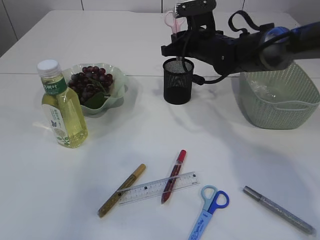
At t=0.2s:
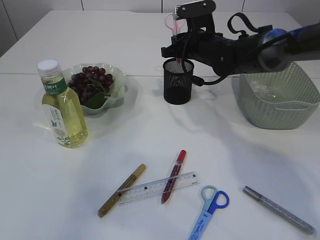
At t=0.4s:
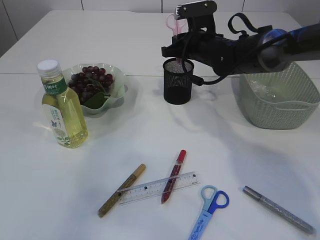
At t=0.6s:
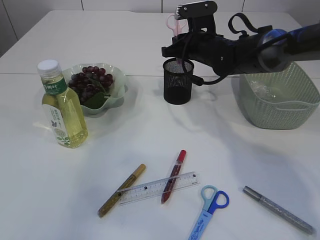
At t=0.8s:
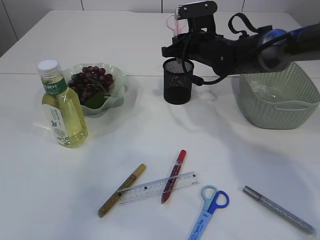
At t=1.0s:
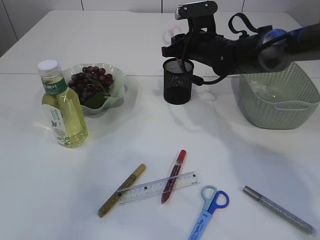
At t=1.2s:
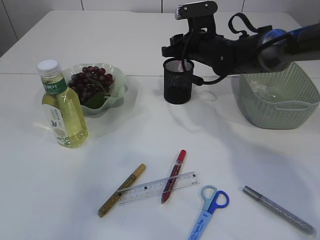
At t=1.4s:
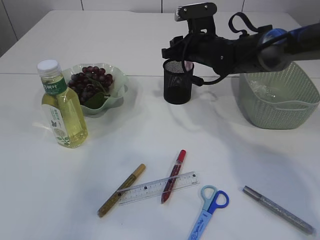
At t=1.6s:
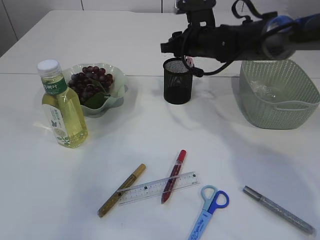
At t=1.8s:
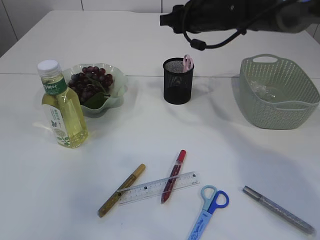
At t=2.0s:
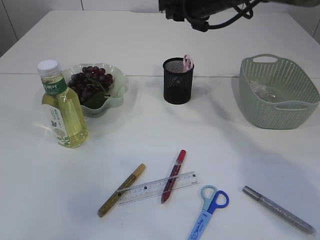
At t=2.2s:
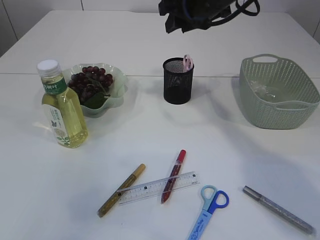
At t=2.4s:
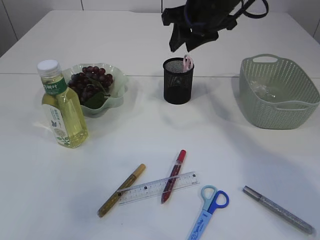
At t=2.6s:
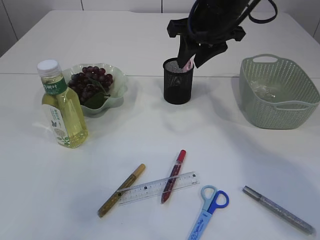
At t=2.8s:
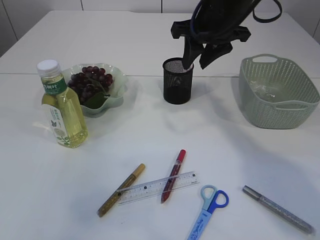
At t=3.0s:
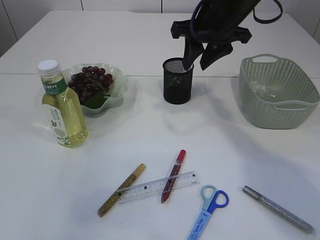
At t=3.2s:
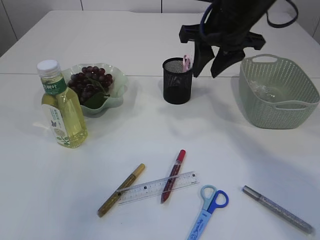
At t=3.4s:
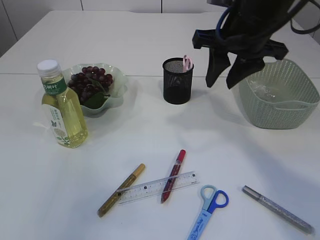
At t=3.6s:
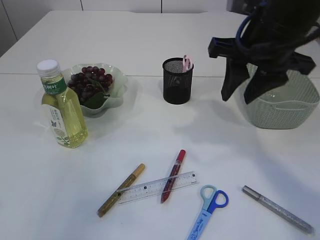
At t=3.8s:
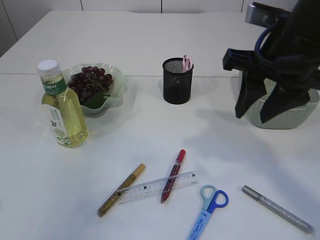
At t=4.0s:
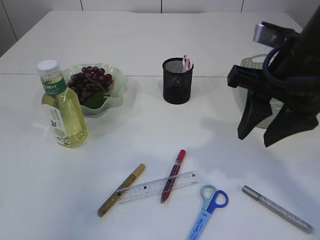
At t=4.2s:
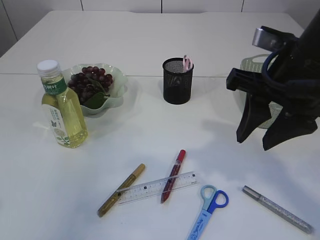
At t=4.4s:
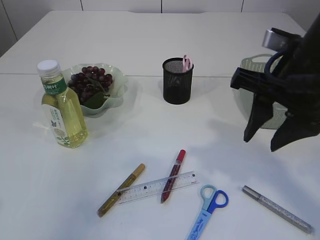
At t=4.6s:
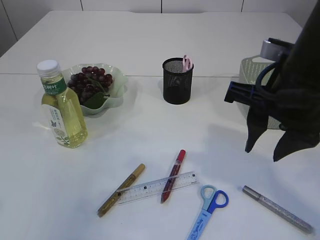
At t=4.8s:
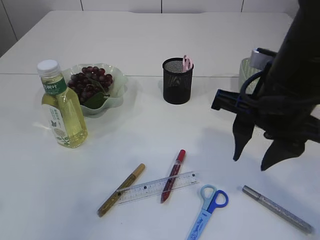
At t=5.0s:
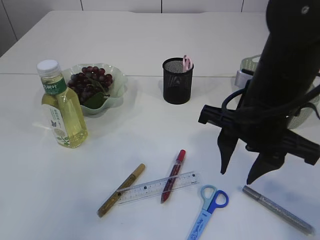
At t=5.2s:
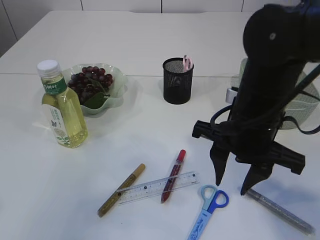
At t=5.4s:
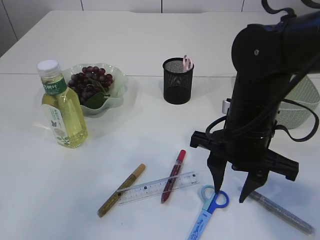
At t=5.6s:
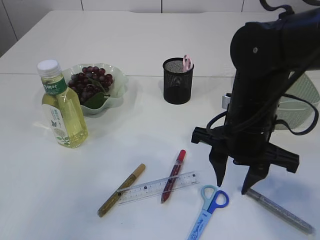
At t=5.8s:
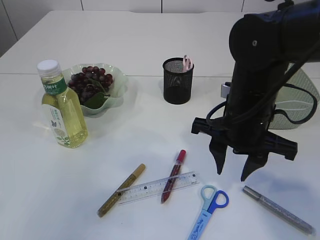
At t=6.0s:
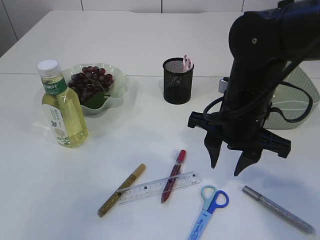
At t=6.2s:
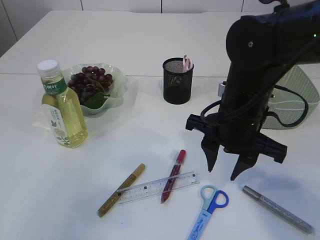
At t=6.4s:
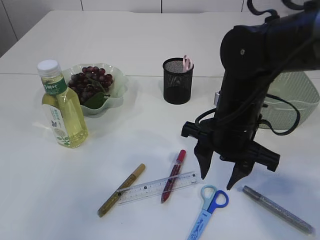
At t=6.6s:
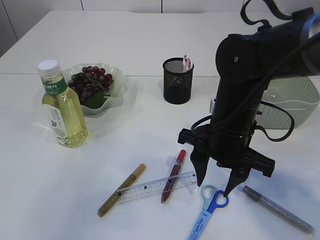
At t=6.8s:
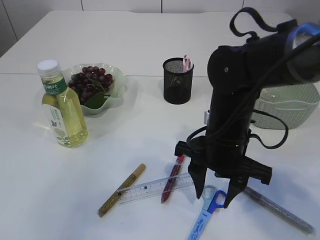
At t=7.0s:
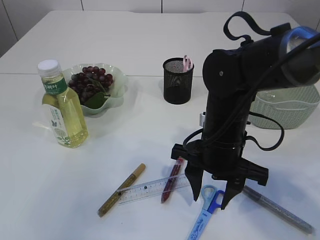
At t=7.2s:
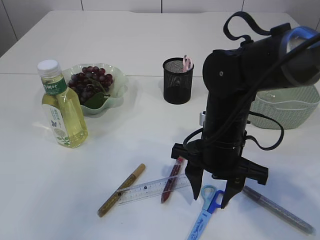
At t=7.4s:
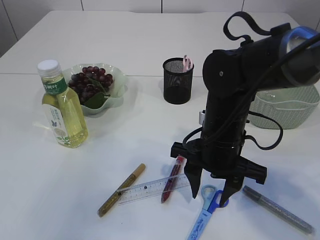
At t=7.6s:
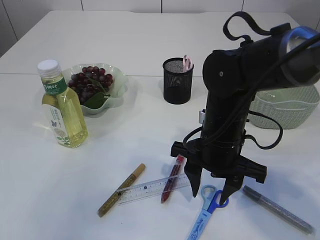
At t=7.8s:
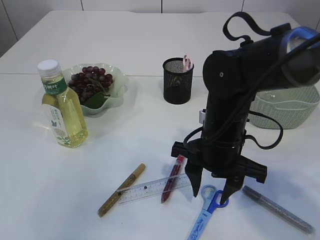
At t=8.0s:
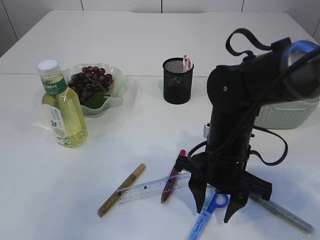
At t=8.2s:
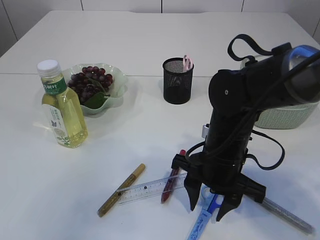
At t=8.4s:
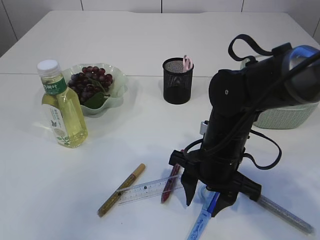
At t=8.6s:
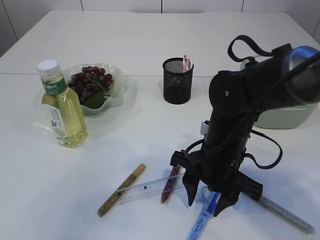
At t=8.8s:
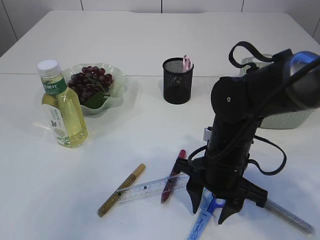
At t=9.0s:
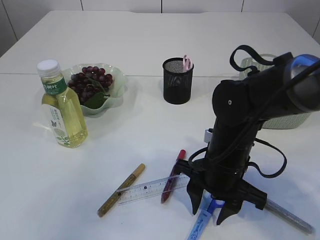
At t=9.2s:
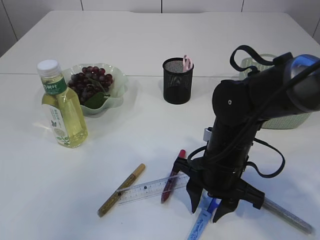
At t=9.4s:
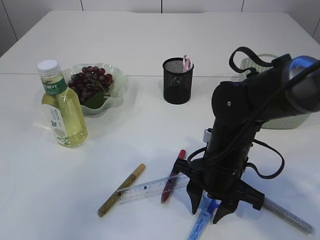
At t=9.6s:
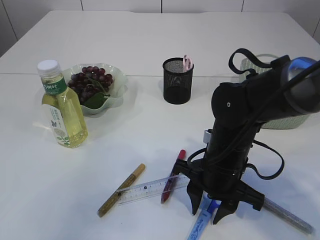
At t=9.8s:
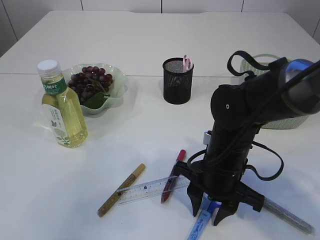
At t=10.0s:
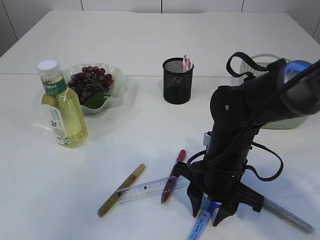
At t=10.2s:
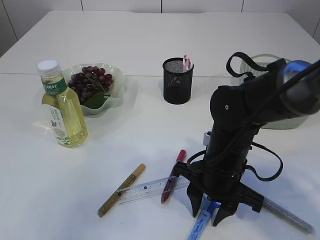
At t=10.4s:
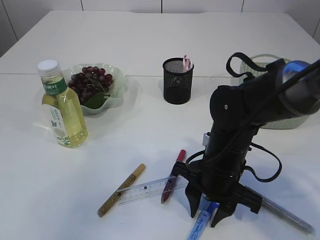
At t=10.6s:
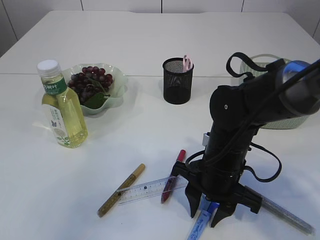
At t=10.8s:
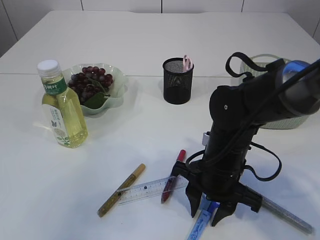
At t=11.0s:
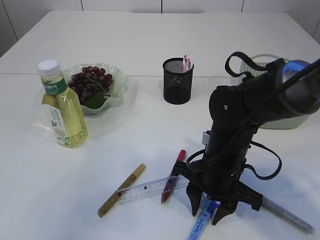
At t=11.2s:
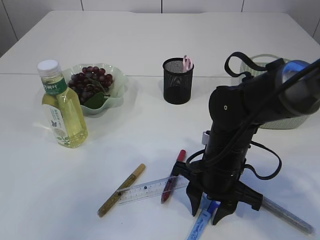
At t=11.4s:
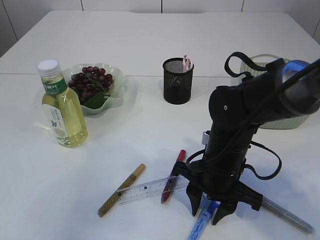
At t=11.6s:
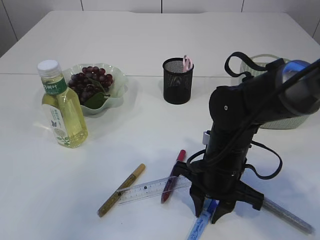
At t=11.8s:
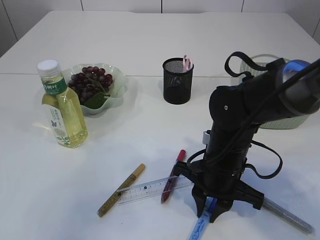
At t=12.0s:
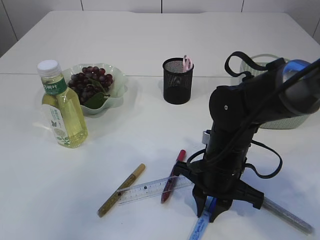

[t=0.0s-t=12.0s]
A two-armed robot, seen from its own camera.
t=0.0s to t=1.6s: The right gripper opens up.
t=1.6s to t=3.0s: The right gripper goes some 10 cm upward and backward.
t=3.0s to t=4.4s: The right gripper heads backward, covering about 15 cm.
t=4.4s to t=6.0s: The right gripper travels downward and to the left by about 10 cm.
t=6.0s to t=7.6s: The right gripper shifts roughly 5 cm downward.
t=7.6s to t=9.0s: The grippers move only a little.
t=9.0s to t=12.0s: Both grippers stay about where they are.

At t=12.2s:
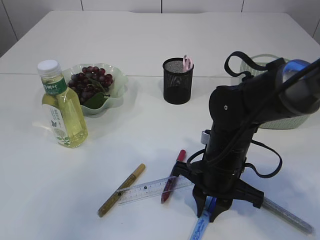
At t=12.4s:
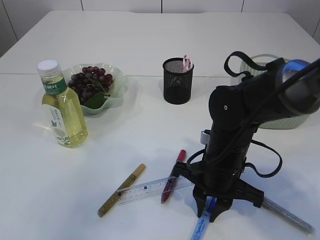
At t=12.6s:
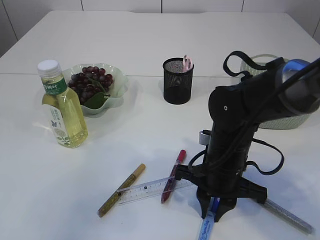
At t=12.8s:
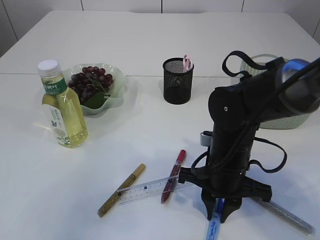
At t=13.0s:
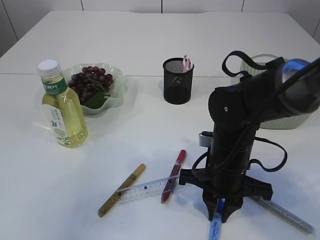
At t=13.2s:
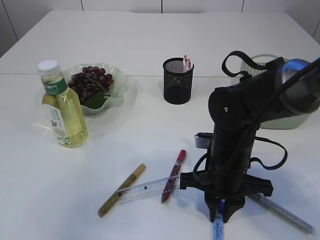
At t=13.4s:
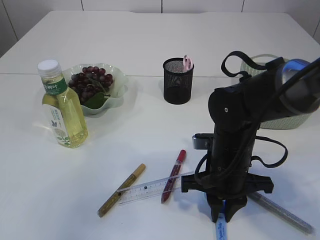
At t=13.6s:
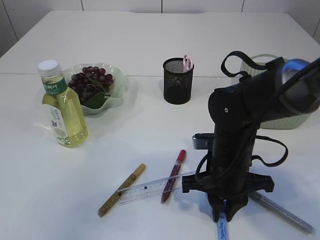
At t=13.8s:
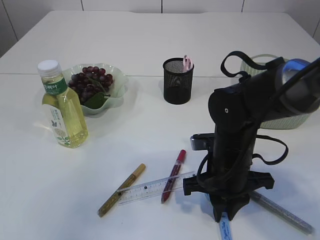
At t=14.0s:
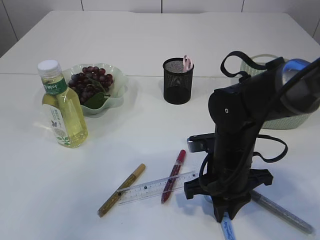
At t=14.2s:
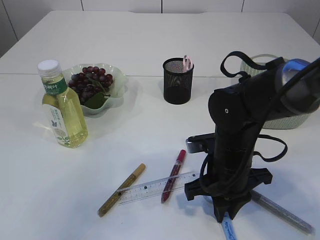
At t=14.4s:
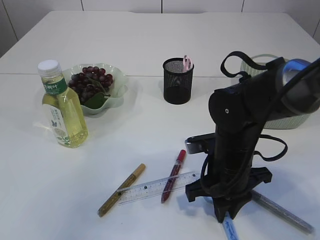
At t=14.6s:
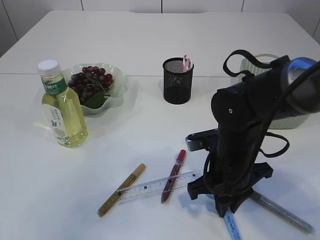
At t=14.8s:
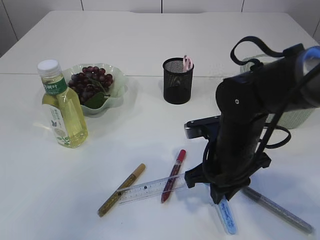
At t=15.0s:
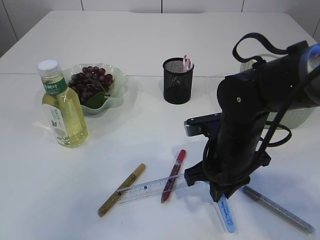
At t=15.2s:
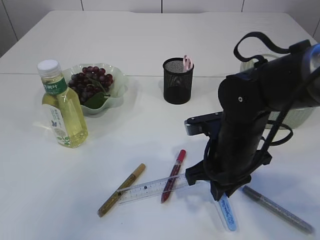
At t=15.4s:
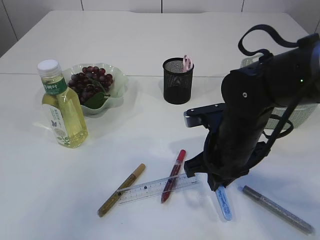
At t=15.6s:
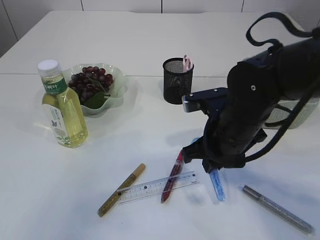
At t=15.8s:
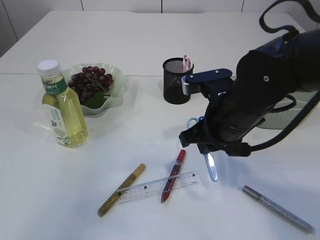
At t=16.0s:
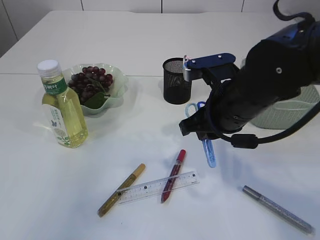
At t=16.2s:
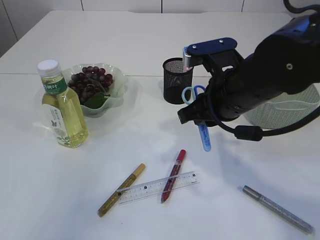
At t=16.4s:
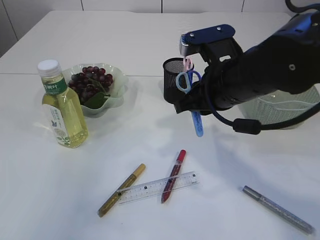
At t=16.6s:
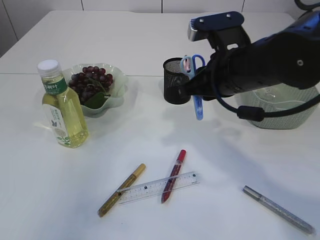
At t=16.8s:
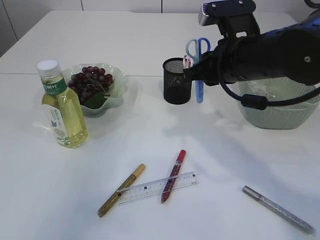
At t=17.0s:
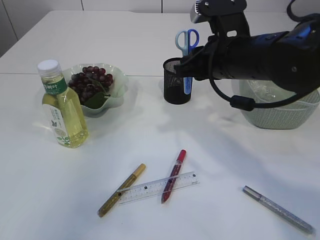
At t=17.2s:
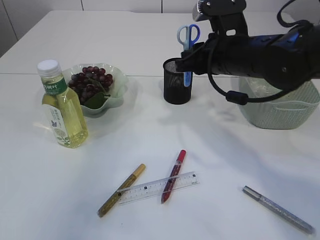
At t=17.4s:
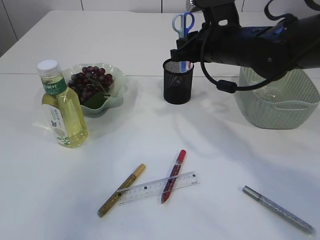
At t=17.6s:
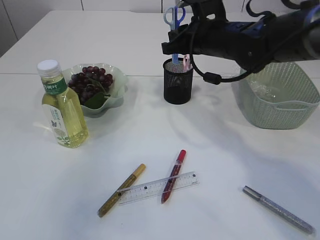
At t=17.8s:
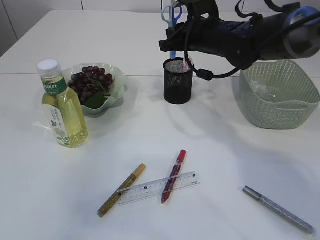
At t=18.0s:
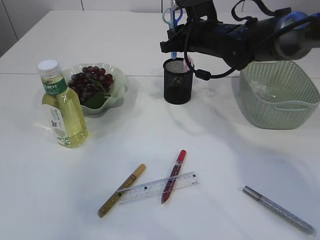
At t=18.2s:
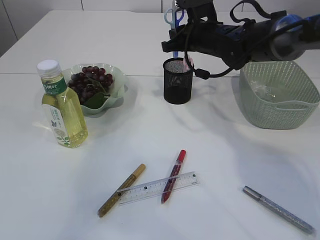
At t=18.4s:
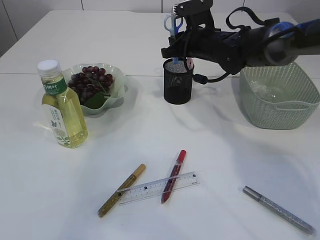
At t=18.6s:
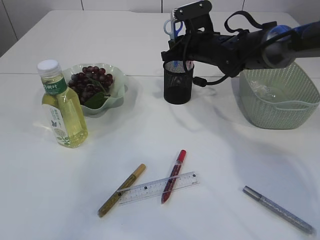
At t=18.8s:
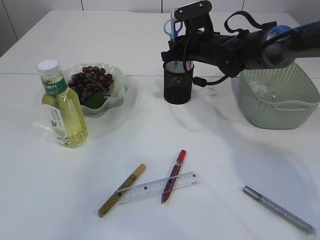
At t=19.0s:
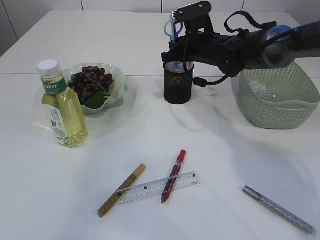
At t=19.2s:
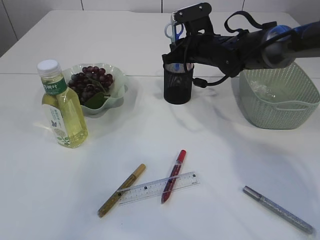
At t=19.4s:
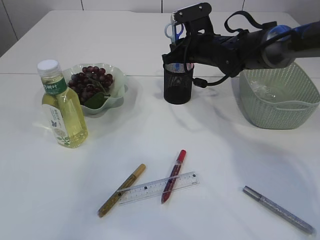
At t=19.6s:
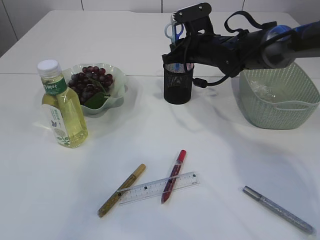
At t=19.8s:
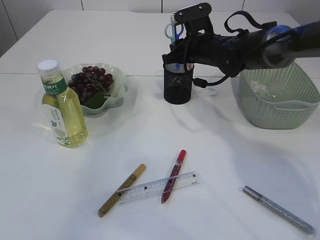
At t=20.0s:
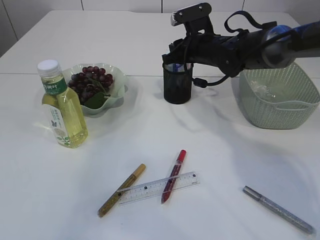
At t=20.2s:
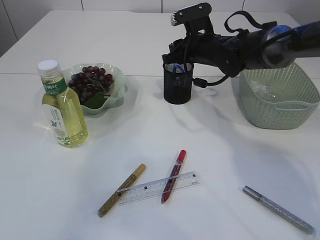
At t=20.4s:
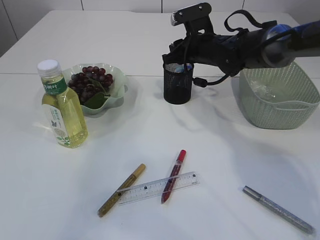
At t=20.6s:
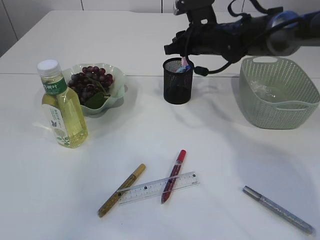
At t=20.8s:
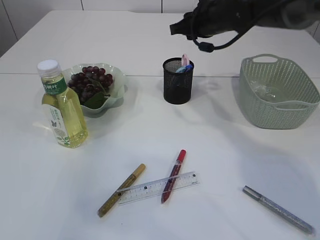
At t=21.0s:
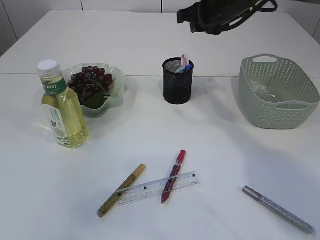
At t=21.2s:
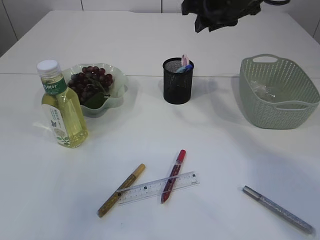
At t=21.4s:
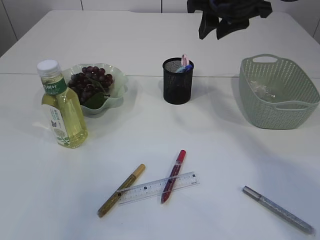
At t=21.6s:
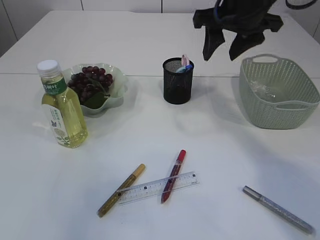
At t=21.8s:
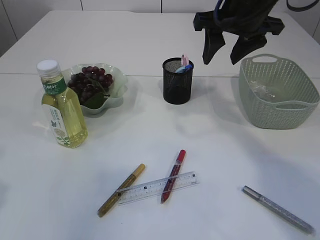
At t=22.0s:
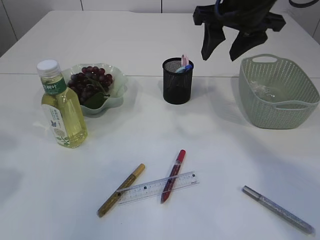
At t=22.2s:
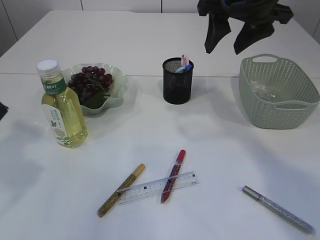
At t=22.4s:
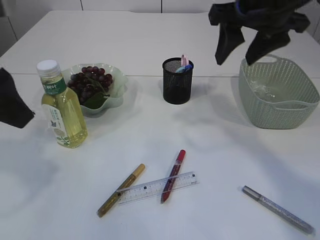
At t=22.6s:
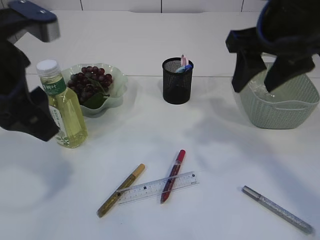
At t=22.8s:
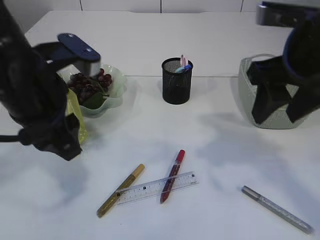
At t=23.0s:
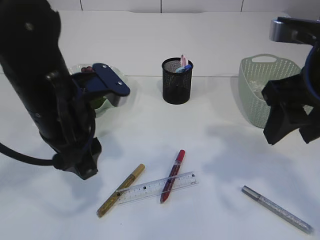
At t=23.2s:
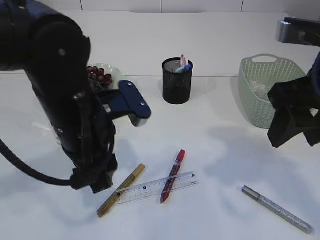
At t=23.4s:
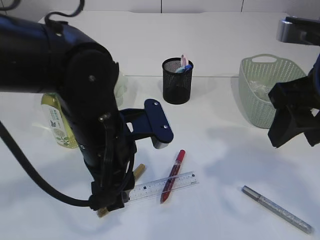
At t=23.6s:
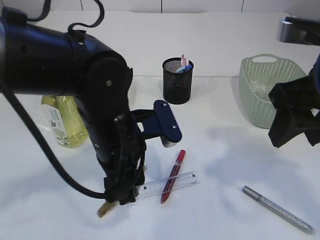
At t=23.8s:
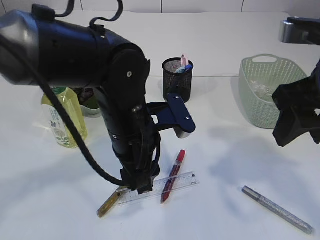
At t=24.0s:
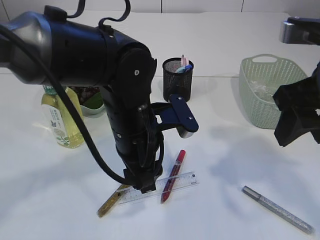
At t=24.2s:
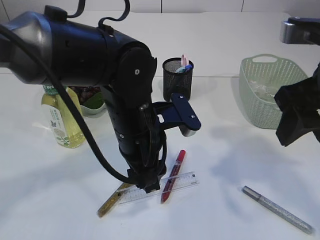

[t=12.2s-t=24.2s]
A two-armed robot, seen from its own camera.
Step, t=12.2s to t=15.4s: pick up the blue scissors.
Step, t=15.6s to t=20.4s: Place the blue scissors into the pen holder.
t=13.8s to t=15.2s: The grippers stay close to where they were, moving slightly.
t=15.2s to t=16.6s: The right gripper goes roughly 10 cm upward.
t=16.6s to t=18.2s: The right gripper heads forward, covering some 15 cm.
t=18.2s to t=19.8s: The grippers make only small movements.
t=19.8s to t=21.2s: The right gripper shifts approximately 10 cm upward.
t=21.2s to t=22.6s: The right gripper moves backward, about 15 cm, and opens its fingers, while the left gripper goes about 15 cm forward and to the right.
t=22.6s to t=24.2s: The right gripper travels backward by approximately 10 cm, while the left gripper shifts roughly 20 cm to the right and downward.
